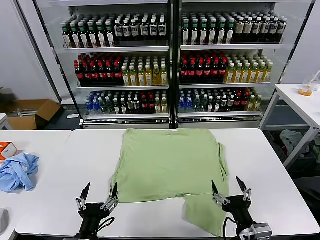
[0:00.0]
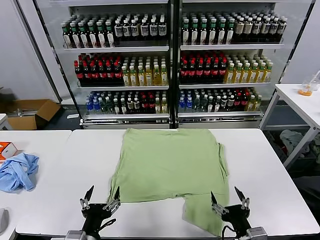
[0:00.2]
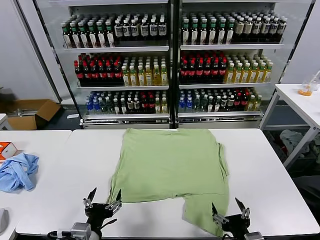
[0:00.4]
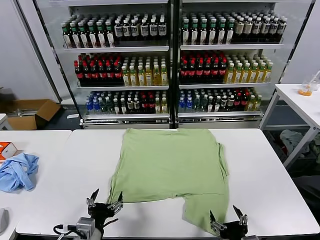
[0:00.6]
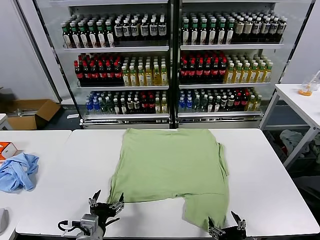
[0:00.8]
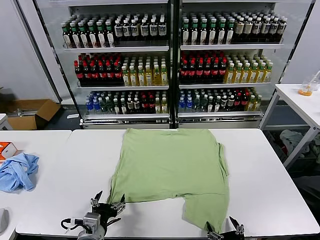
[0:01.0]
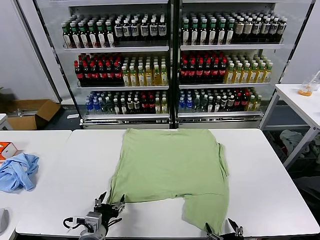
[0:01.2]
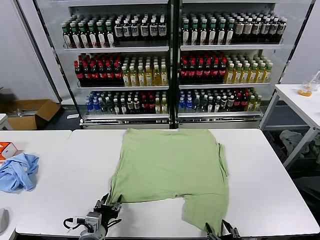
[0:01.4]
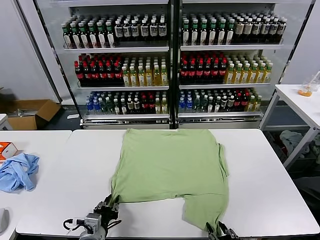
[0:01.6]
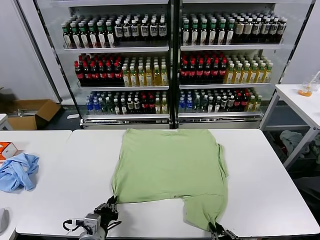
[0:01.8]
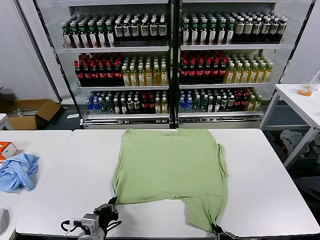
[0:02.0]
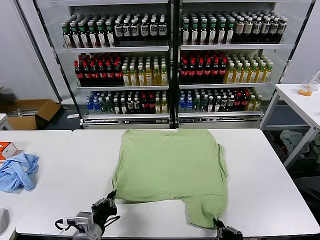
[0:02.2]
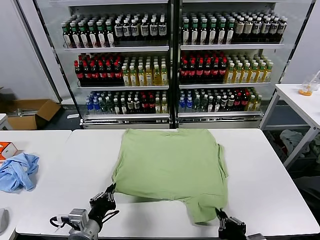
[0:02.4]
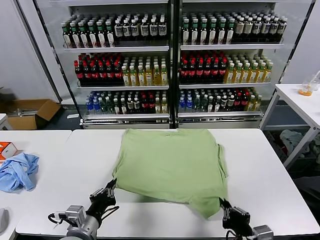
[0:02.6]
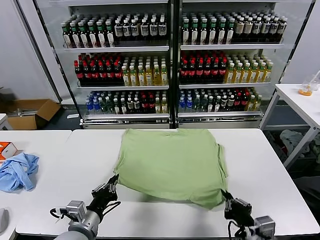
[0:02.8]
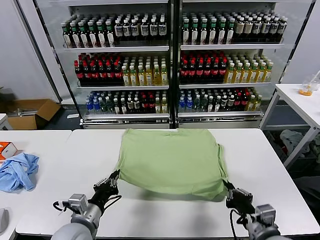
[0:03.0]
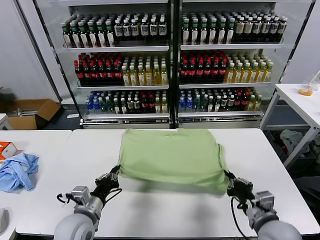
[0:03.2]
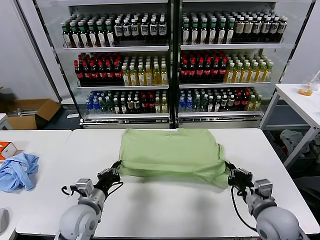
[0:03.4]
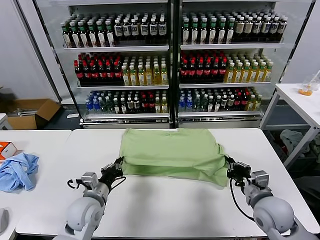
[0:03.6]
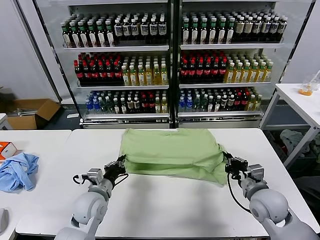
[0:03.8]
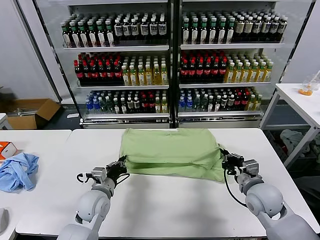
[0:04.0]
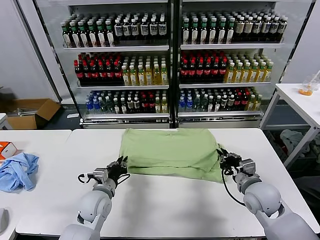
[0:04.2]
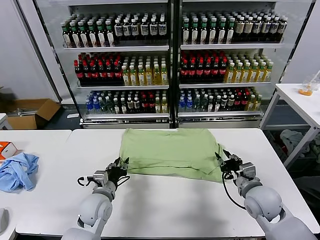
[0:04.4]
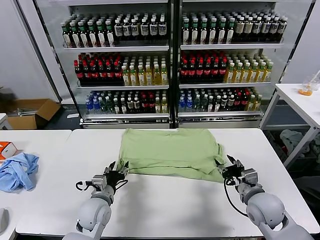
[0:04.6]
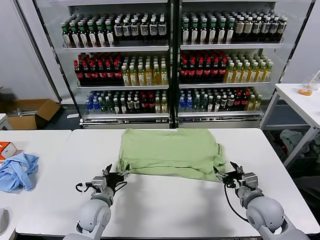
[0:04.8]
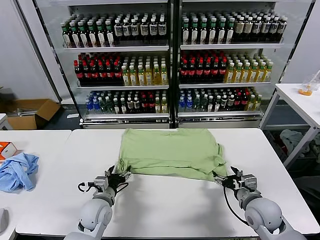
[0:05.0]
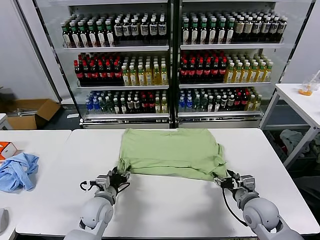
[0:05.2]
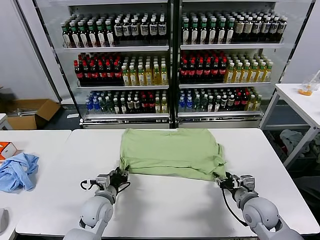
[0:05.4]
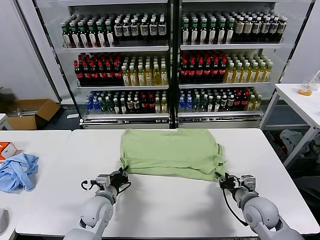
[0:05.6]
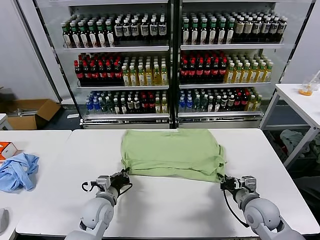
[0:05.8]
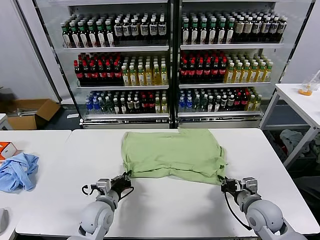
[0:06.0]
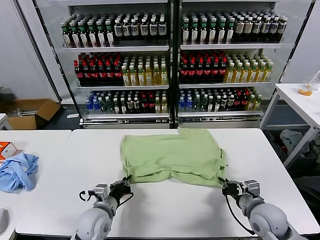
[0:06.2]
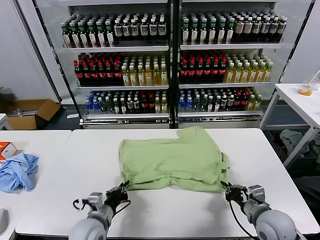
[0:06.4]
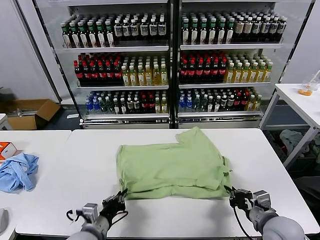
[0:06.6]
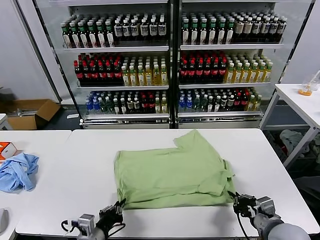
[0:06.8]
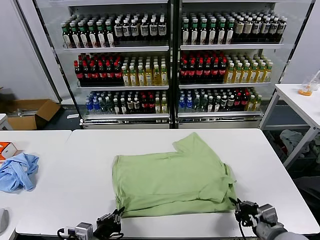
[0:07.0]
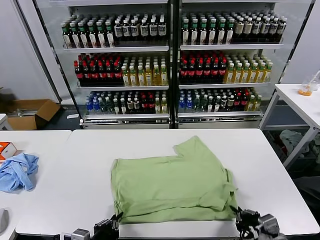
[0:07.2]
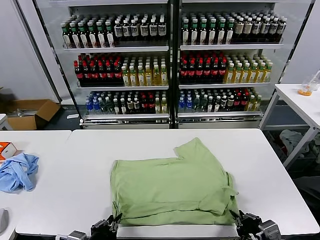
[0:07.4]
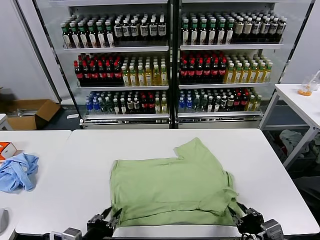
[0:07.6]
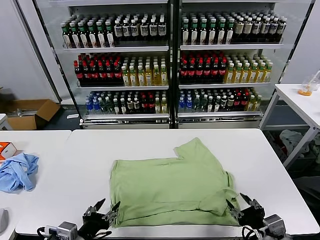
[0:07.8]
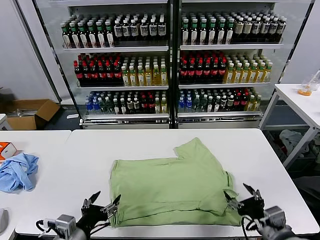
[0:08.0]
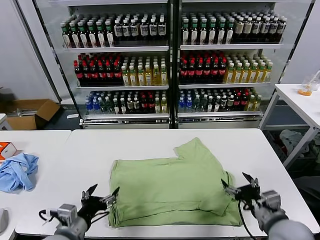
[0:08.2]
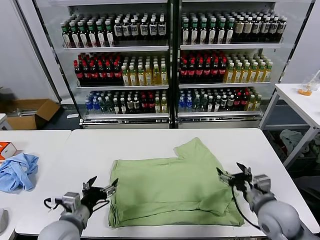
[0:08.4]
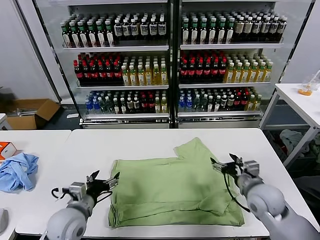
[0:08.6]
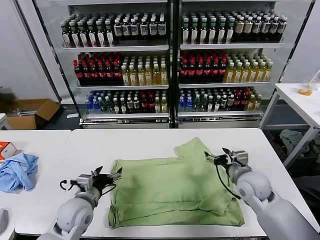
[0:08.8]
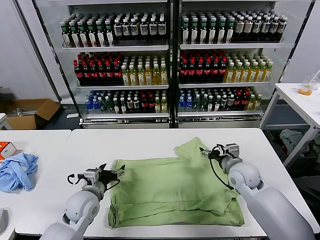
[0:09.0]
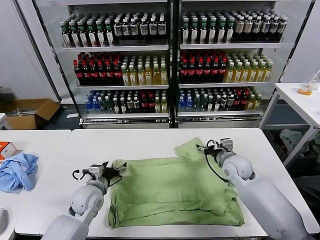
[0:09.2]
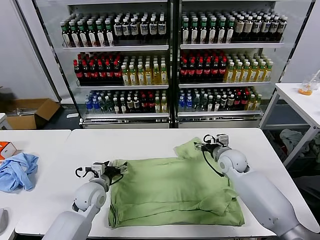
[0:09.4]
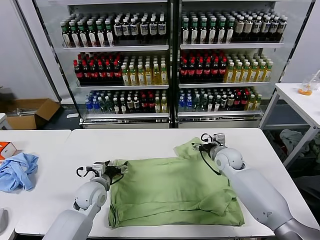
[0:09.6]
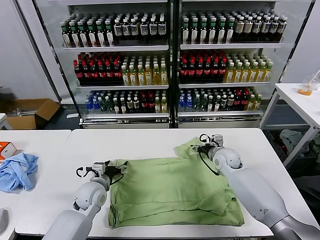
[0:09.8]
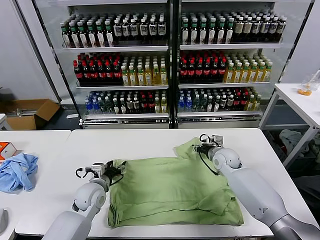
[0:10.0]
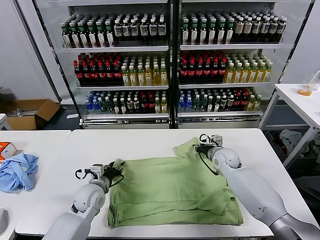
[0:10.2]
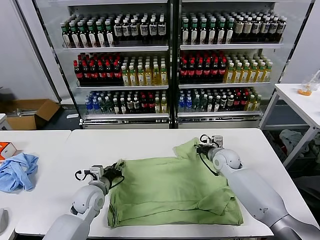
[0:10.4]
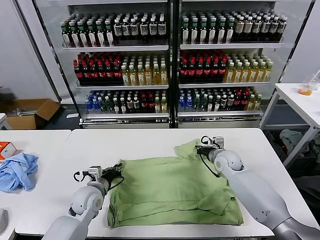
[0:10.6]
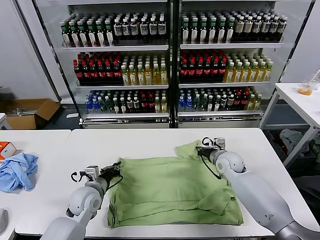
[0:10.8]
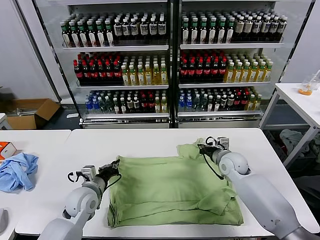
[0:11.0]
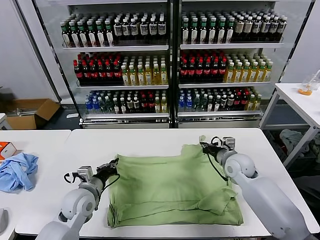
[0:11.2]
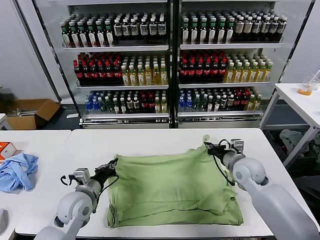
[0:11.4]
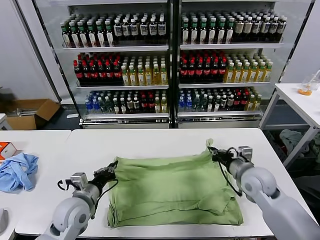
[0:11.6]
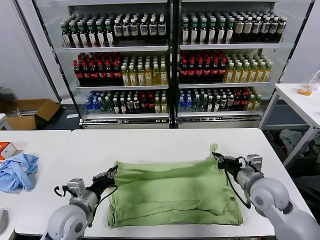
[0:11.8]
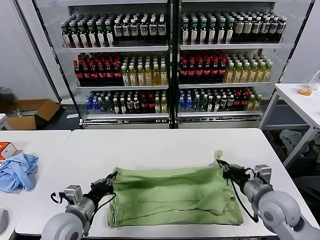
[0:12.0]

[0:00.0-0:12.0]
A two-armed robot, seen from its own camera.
Task of the whole recording: fold and organize the clothes.
Step, 0:00.0 to 0:02.0: use both grippers simultaneously to clamp the lower edge of the clothing fabric.
Step, 0:02.2 to 0:04.4: use both grippers to drag the lower edge of the fabric forward and fold it over the upper edge.
Step, 0:04.6 to 0:07.6: Drag the clothes downward with both gripper.
Step, 0:07.8 to 0:10.8: use both grippers simultaneously to clamp the upper edge of the clothing fabric.
0:01.6 to 0:03.0: The left gripper moves upward, some 5 cm, and closes. Meanwhile the right gripper moves forward and to the right, roughly 15 cm.
0:03.0 to 0:04.4: The right gripper heads forward, covering approximately 10 cm, and opens up; the left gripper moves forward and downward, about 10 cm, and opens its fingers.
0:04.4 to 0:06.0: The left gripper closes its fingers; the right gripper closes up.
0:06.0 to 0:07.6: The two grippers go about 15 cm backward and upward. The left gripper opens, while the right gripper opens.
0:07.6 to 0:09.0: The two grippers go approximately 25 cm forward. The left gripper opens its fingers. Meanwhile the right gripper opens up.
0:09.0 to 0:10.4: The right gripper moves forward, approximately 5 cm, and closes. Meanwhile the left gripper closes its fingers.
0:10.4 to 0:12.0: The left gripper moves backward and upward, approximately 15 cm. The right gripper heads backward, covering some 25 cm.

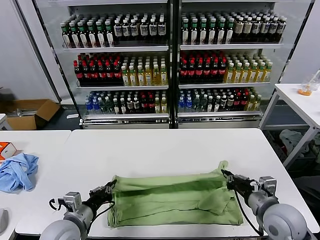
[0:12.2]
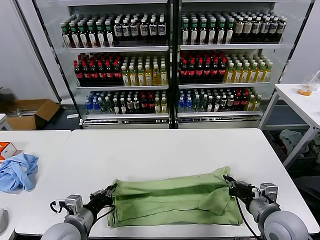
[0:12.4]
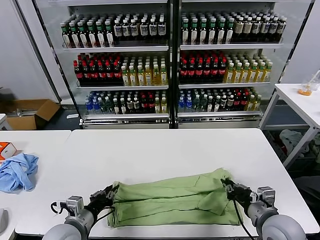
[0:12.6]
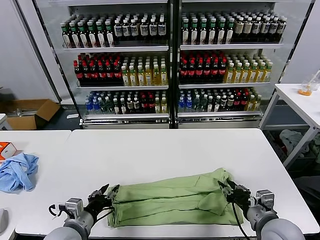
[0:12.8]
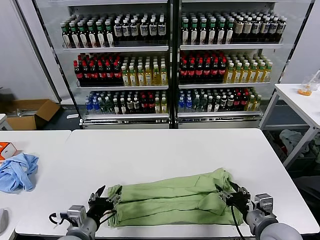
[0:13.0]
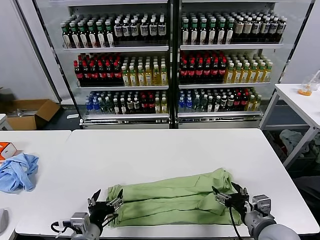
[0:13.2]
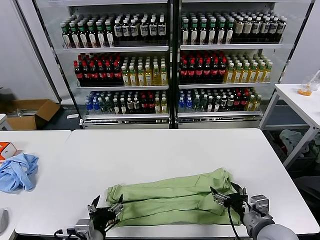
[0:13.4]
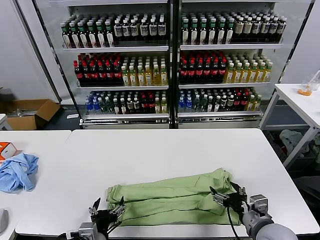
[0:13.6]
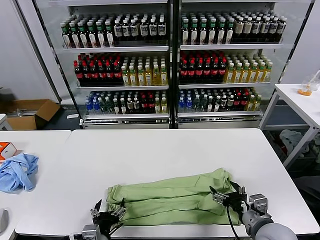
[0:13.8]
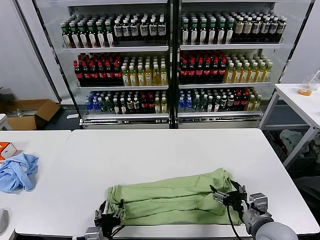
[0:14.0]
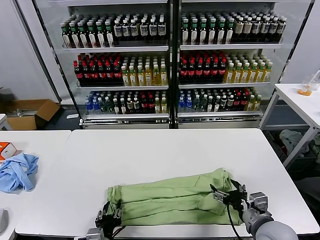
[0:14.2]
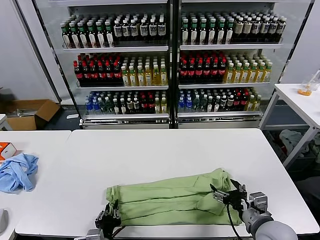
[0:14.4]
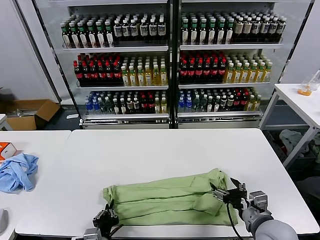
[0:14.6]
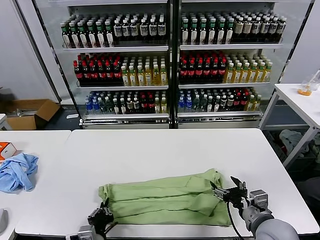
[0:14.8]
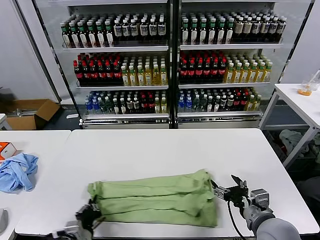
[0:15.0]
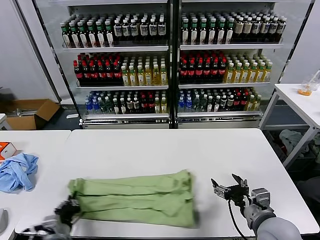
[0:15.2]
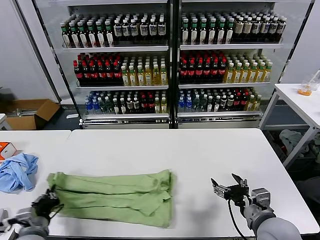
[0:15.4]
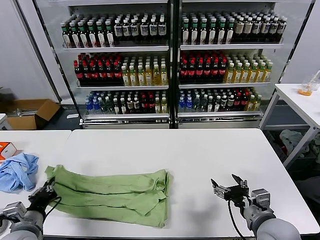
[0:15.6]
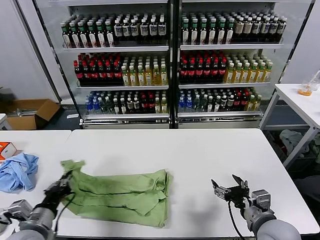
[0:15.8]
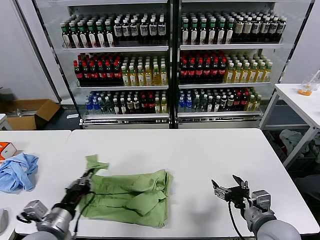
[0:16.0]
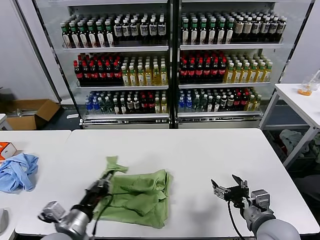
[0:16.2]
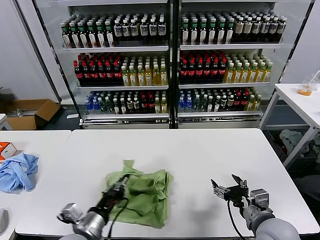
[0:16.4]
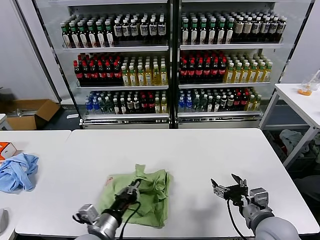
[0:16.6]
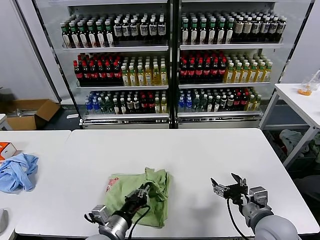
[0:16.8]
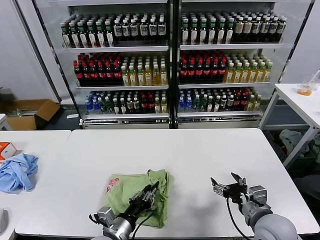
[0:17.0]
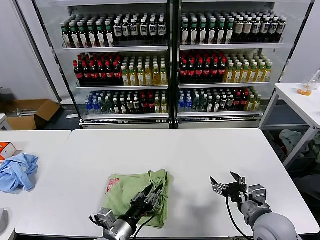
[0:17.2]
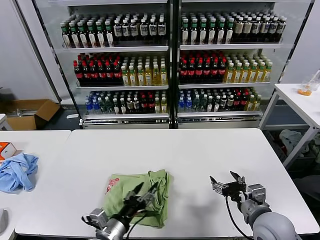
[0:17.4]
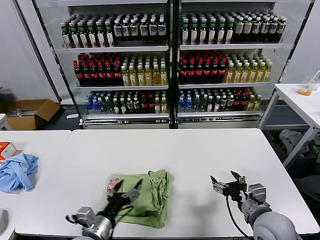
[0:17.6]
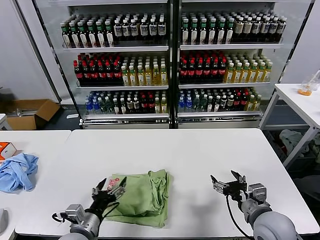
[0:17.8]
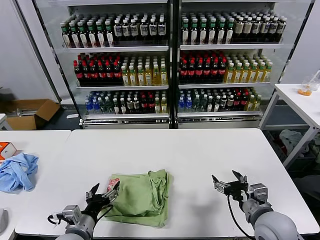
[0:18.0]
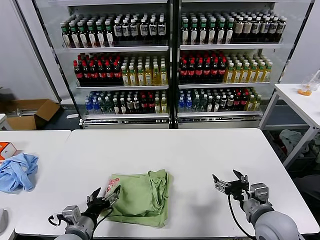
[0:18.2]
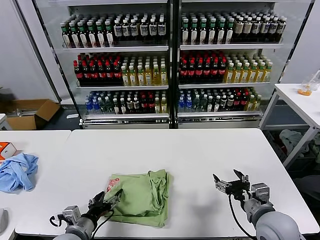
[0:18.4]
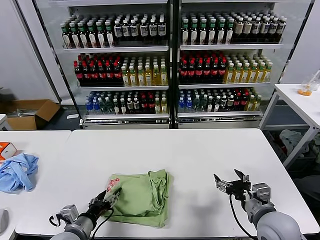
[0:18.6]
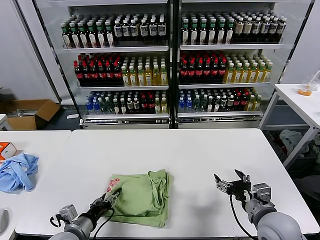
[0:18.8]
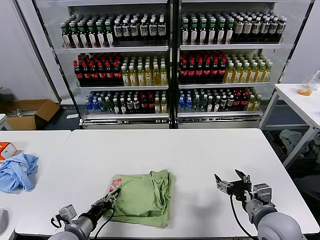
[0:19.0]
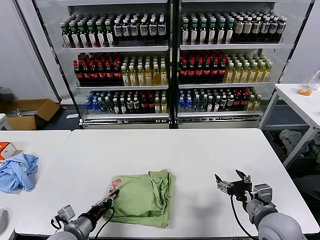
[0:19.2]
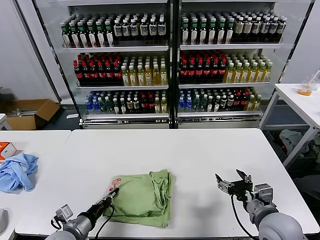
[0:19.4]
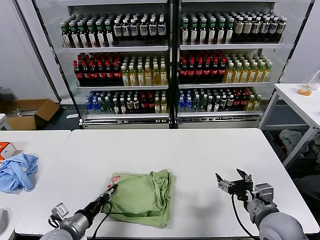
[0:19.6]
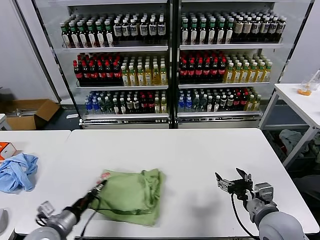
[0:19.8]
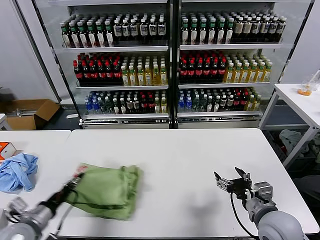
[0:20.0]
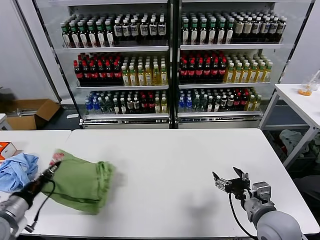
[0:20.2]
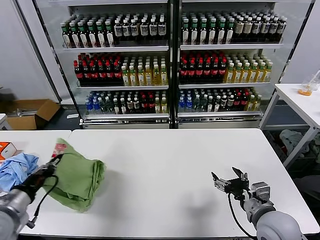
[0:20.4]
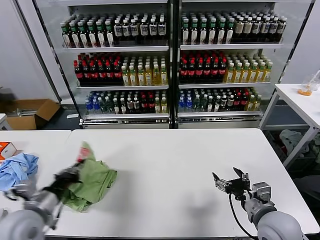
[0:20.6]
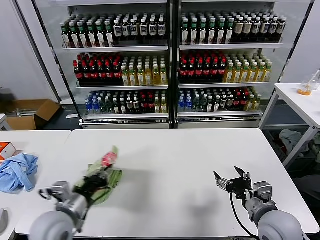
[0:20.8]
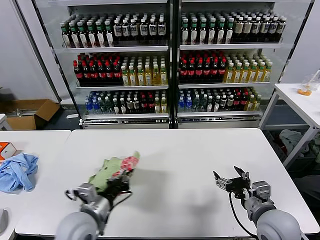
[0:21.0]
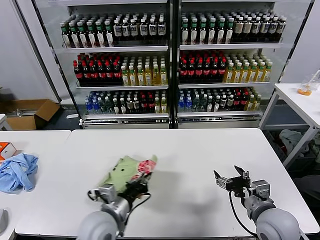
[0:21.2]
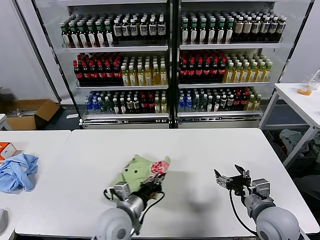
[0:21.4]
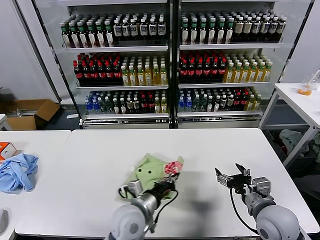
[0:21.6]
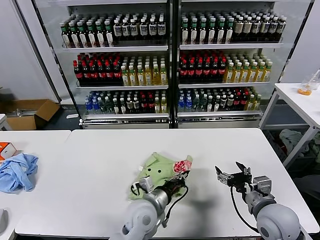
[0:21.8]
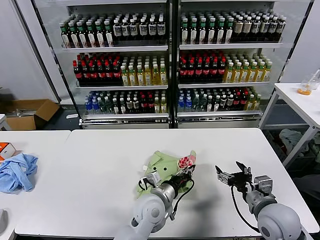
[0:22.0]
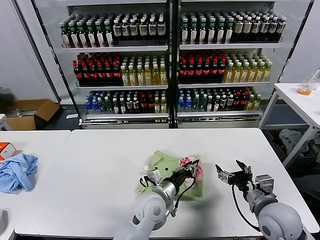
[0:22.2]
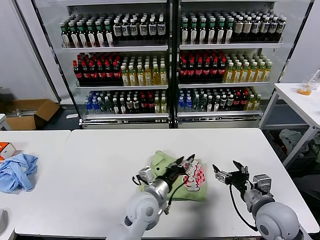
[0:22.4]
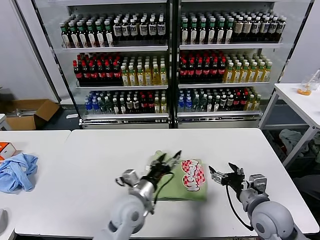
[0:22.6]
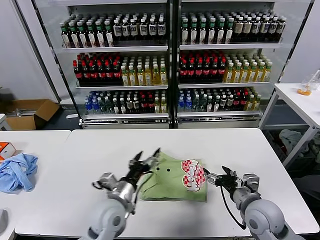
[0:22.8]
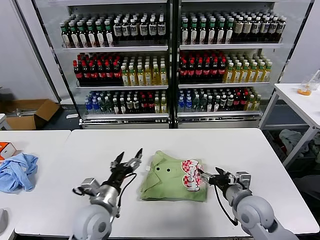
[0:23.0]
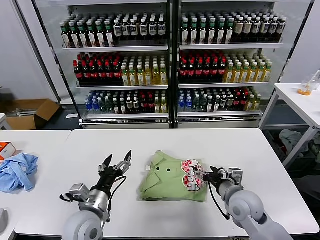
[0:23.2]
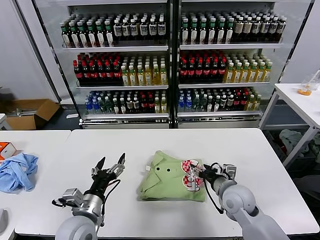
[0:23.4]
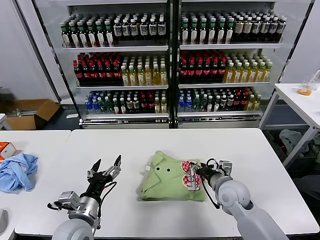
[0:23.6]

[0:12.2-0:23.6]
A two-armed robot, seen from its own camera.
Task of the whole recording: fold and organize the clothes.
Step, 0:13.2 to 0:14.4: use the left gripper to clamp the left edge of the fabric.
Step, 0:14.8 to 0:17.2: use the left gripper to drag the left edge of the fabric to the left and folds it over the right edge.
Step, 0:17.6 to 0:22.2: Flip the folded clothes over with left gripper.
0:12.2 to 0:13.6: The left gripper travels backward and to the right by some 10 cm, and opens up; the right gripper opens.
0:13.6 to 0:15.0: The left gripper changes place by roughly 5 cm, and closes.
0:15.0 to 0:16.4: The left gripper shifts about 10 cm upward, and goes to the left and returns, approximately 15 cm each way.
0:16.4 to 0:17.8: The left gripper opens.
0:17.8 to 0:19.4: The left gripper travels to the left by roughly 5 cm, and closes up.
0:19.4 to 0:20.8: The left gripper moves upward, roughly 10 cm.
0:20.8 to 0:22.2: The left gripper heads to the right, covering roughly 25 cm.
0:22.2 to 0:23.6: The right gripper shifts approximately 15 cm forward, to the left and downward, and closes up, while the left gripper heads to the left and backward, covering some 20 cm, and opens its fingers.
